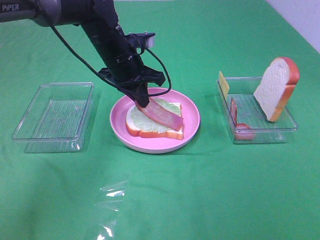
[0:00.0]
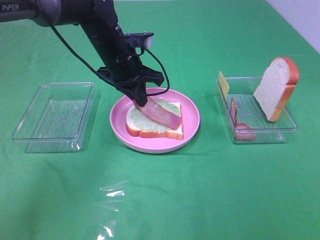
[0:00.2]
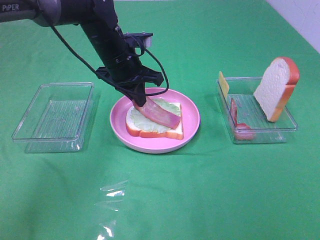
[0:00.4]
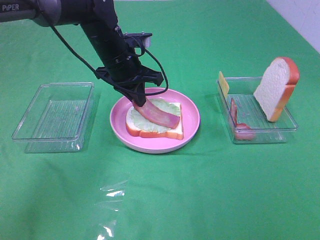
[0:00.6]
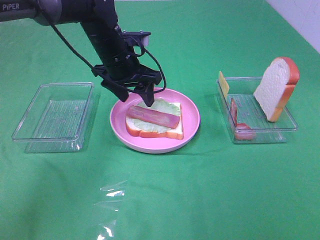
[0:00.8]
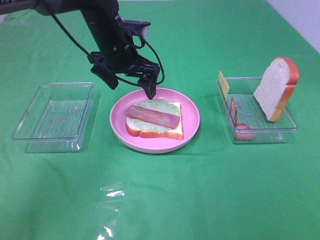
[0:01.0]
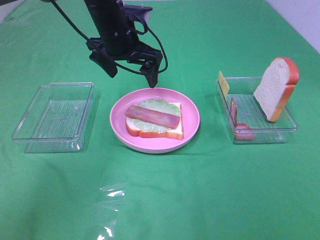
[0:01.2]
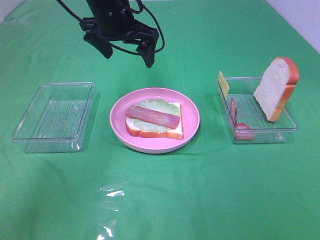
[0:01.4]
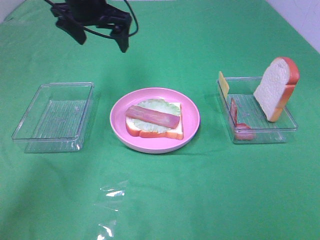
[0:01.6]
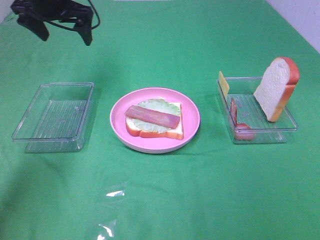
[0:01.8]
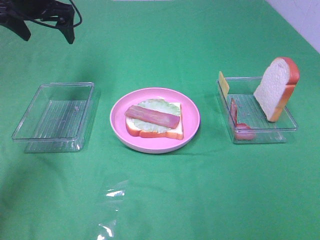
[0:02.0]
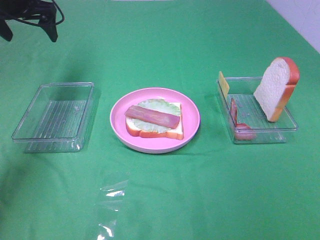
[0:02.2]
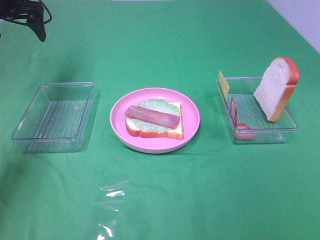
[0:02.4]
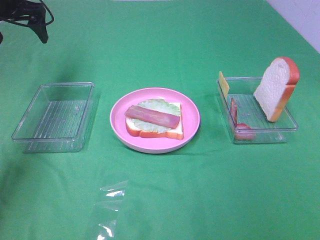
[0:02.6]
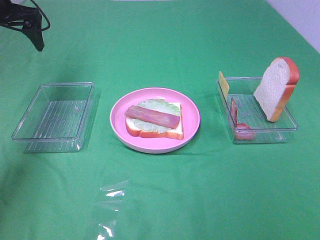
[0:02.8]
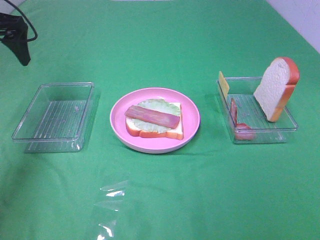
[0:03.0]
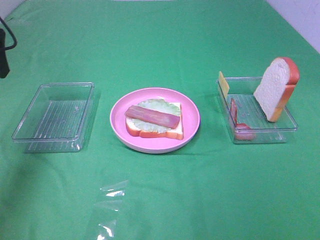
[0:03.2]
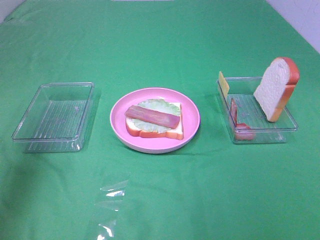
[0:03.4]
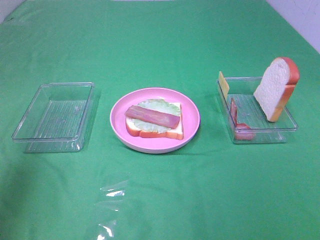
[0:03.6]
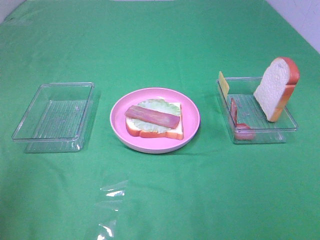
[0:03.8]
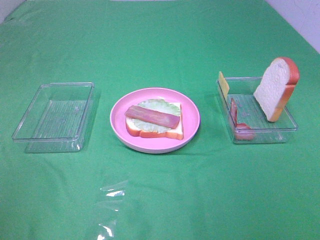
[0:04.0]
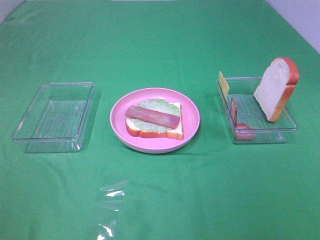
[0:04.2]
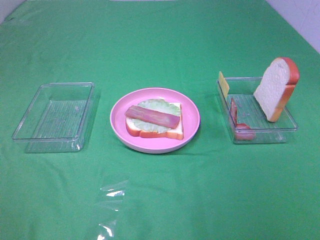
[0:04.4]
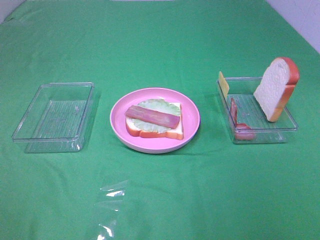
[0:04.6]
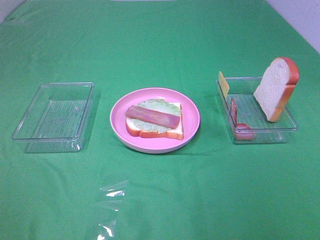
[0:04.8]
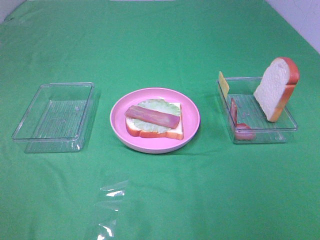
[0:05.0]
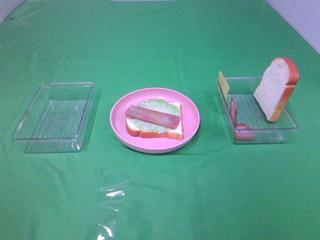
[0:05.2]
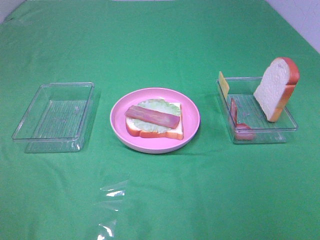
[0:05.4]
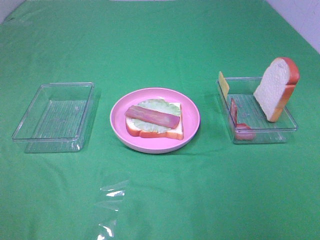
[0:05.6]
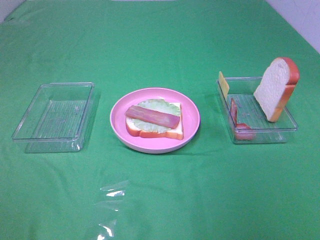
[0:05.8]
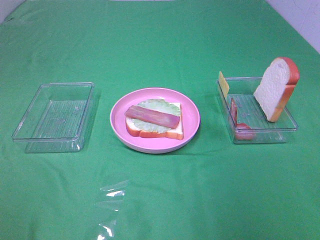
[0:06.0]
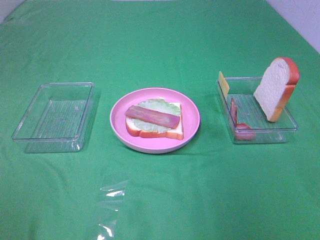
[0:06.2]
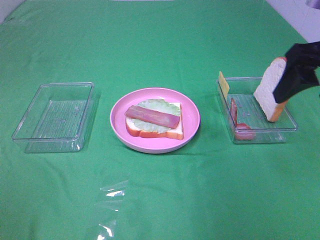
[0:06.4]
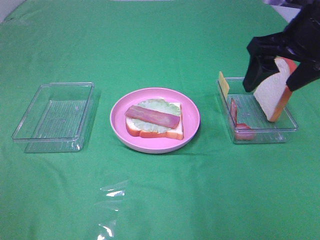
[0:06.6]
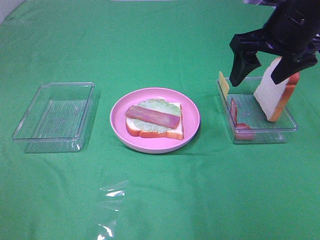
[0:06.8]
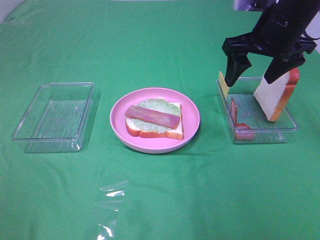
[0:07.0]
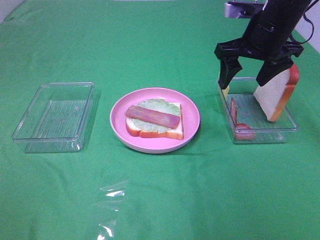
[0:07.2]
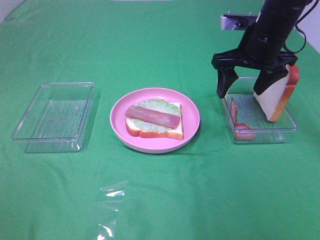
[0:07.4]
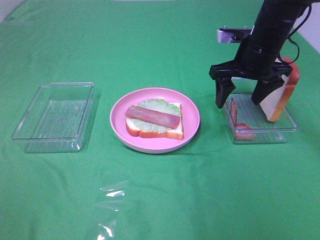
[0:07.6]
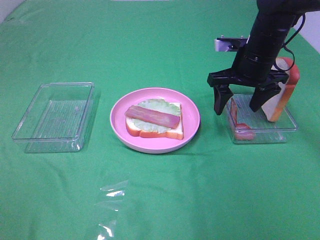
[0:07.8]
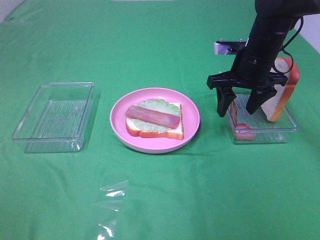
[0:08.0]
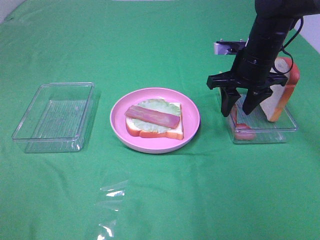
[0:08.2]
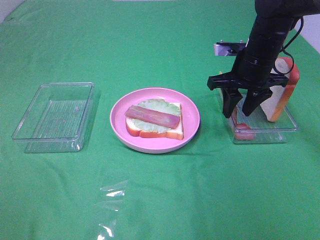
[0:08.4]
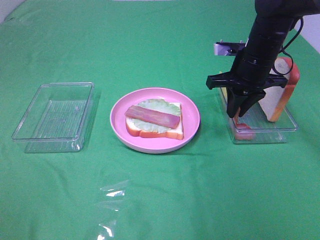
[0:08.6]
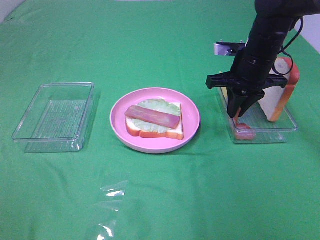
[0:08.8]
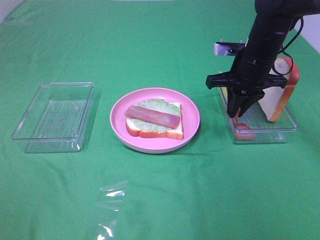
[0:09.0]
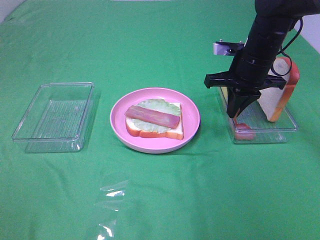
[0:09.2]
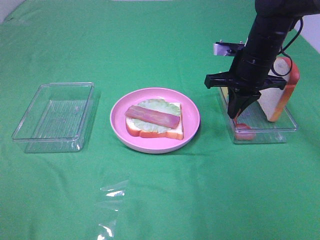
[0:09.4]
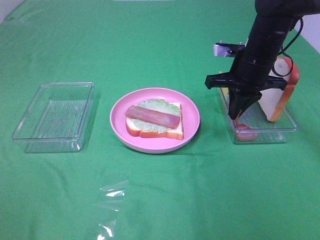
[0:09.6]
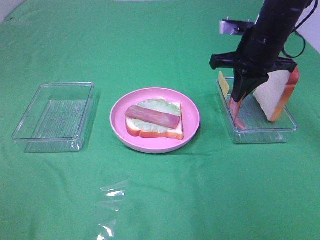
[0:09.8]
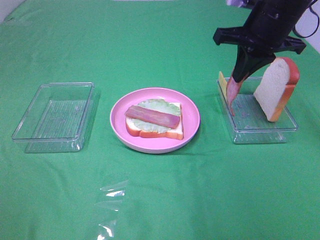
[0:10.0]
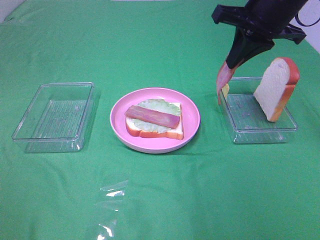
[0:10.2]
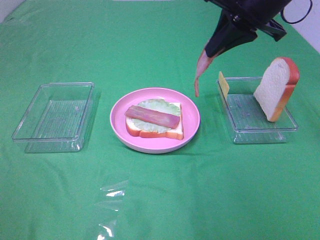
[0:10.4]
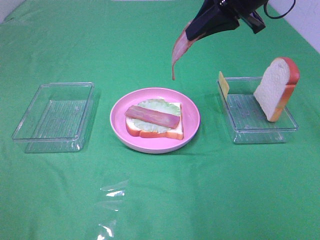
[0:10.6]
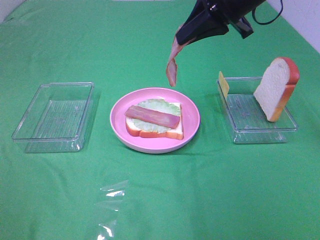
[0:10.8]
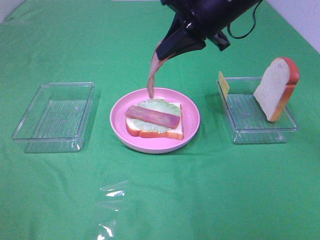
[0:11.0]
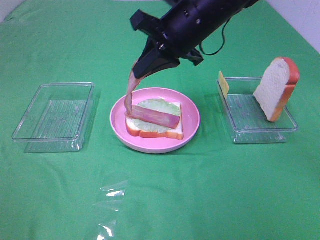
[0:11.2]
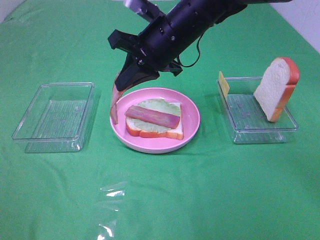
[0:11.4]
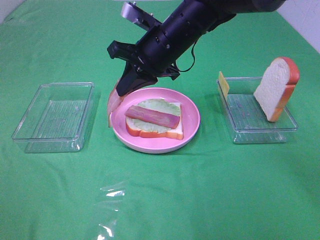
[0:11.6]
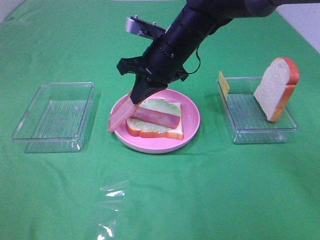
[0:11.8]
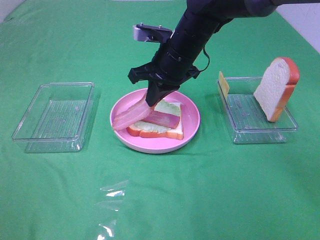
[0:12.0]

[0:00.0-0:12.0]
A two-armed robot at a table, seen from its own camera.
Task of the whole recording: Make sandwiches.
Step, 0:01.0 to 0:09.4: Right hand:grab the bacon.
0:00.0 to 0:01.6: The left gripper shifts approximately 15 cm upward and to the left, and opens its fingers.
0:01.6 to 0:03.0: The left gripper travels to the left and backward by approximately 15 cm.
0:03.0 to 0:04.4: The left gripper is displaced backward by about 40 cm.
0:06.0 to 0:07.6: The right gripper shifts roughly 25 cm forward and downward.
0:07.6 to 0:09.0: The right gripper closes up.
0:09.0 to 0:10.4: The right gripper heads upward, covering approximately 15 cm.
0:10.4 to 0:12.0: The right gripper is displaced downward and to the left by roughly 15 cm.

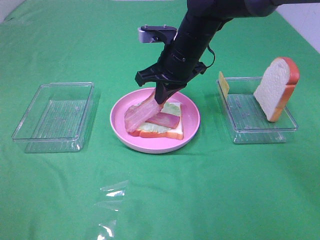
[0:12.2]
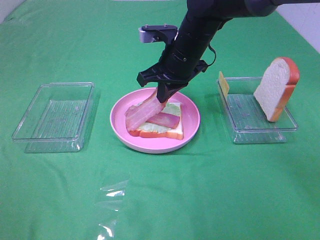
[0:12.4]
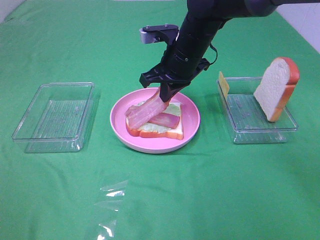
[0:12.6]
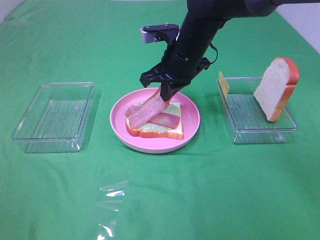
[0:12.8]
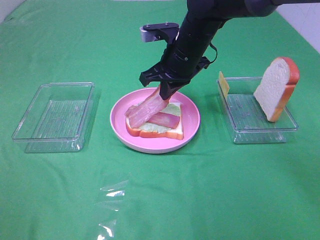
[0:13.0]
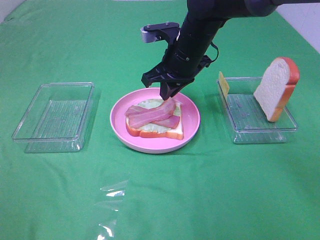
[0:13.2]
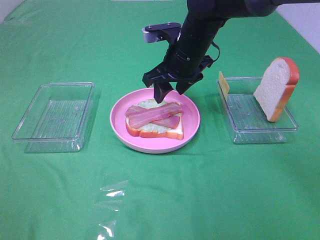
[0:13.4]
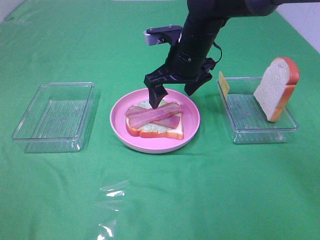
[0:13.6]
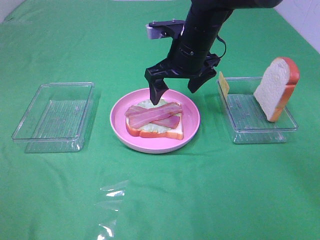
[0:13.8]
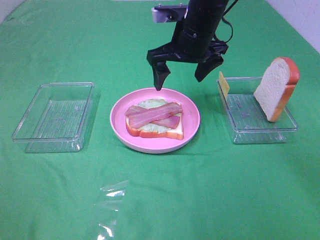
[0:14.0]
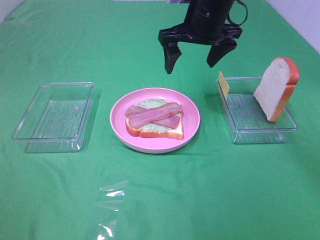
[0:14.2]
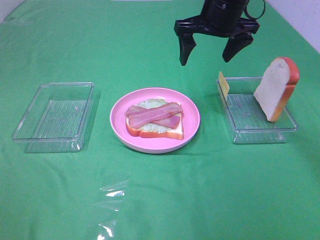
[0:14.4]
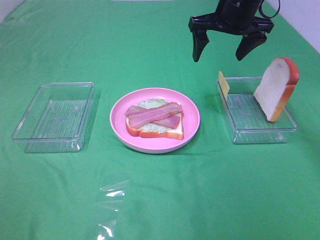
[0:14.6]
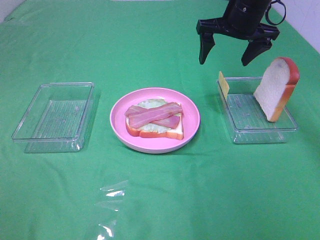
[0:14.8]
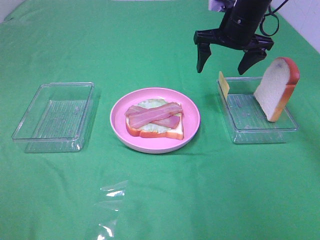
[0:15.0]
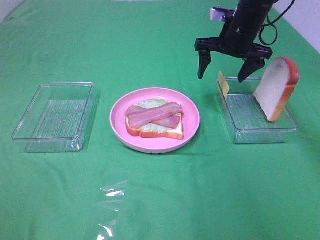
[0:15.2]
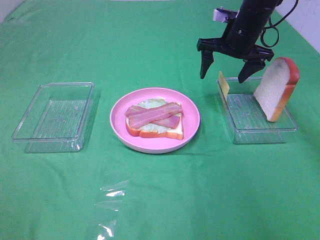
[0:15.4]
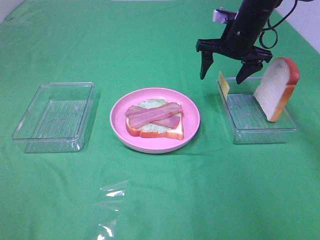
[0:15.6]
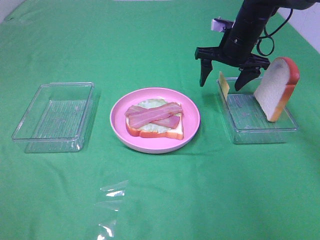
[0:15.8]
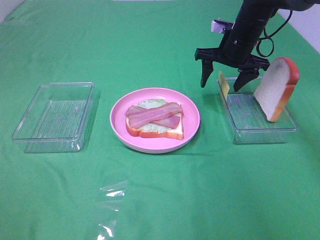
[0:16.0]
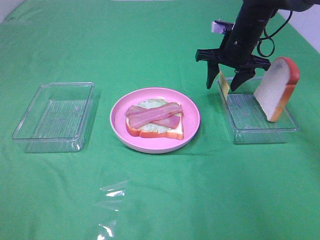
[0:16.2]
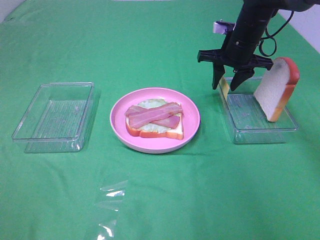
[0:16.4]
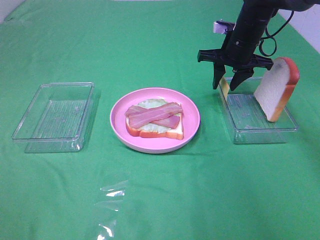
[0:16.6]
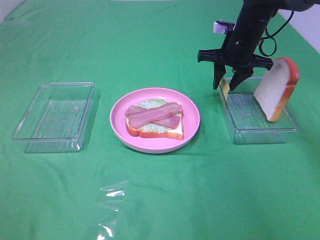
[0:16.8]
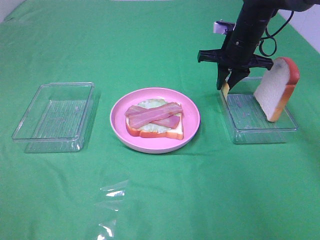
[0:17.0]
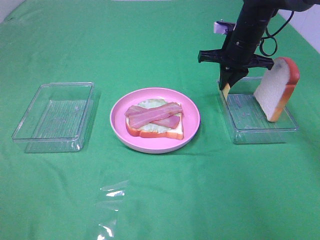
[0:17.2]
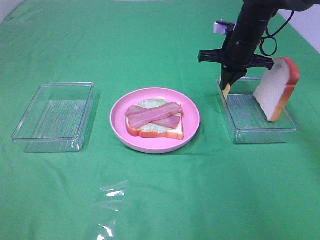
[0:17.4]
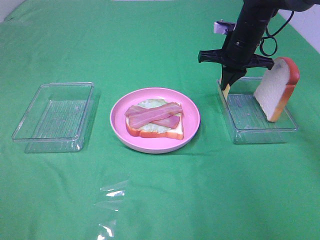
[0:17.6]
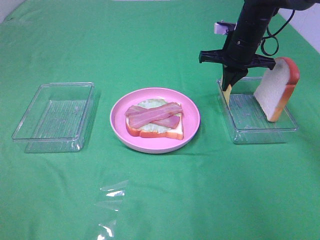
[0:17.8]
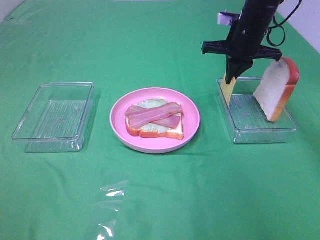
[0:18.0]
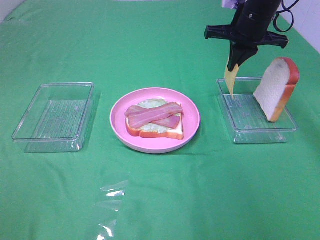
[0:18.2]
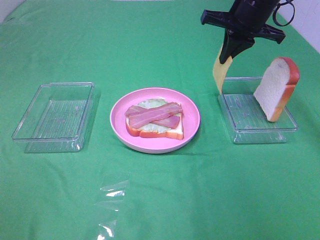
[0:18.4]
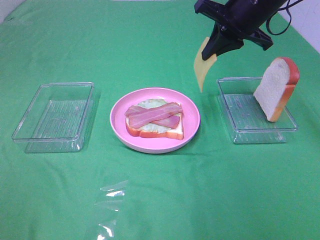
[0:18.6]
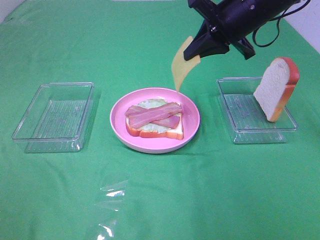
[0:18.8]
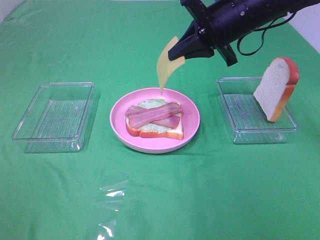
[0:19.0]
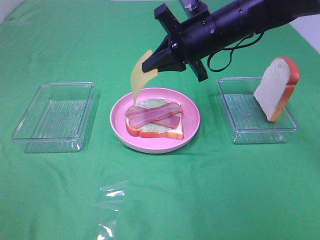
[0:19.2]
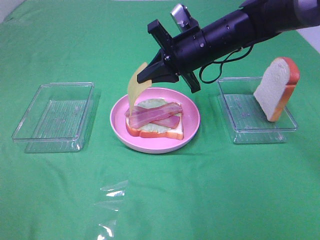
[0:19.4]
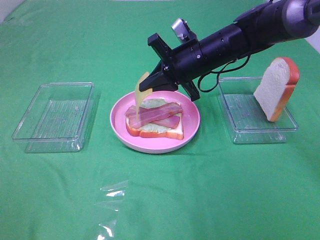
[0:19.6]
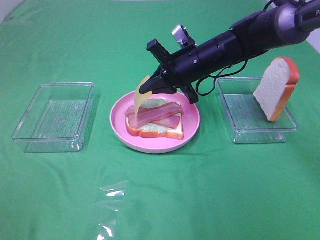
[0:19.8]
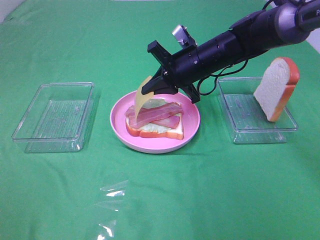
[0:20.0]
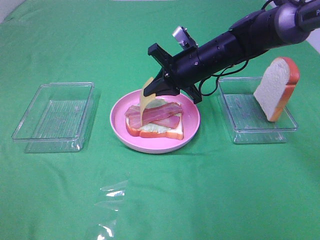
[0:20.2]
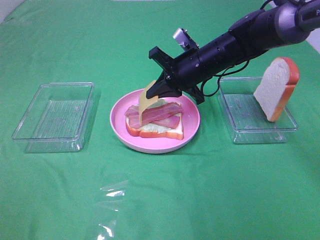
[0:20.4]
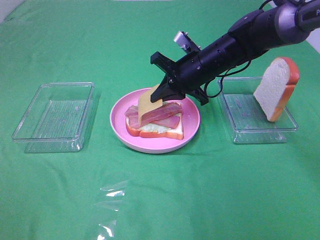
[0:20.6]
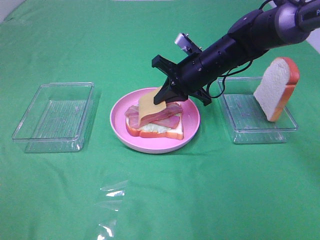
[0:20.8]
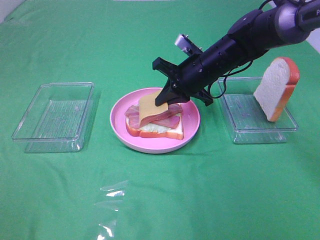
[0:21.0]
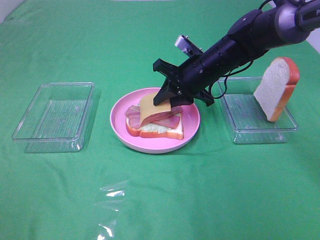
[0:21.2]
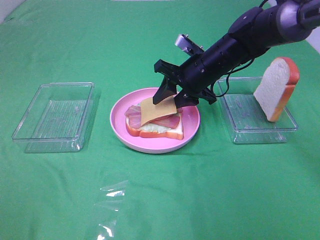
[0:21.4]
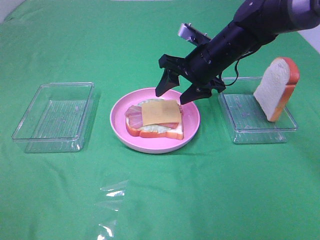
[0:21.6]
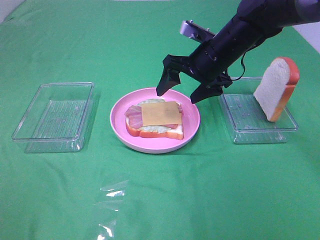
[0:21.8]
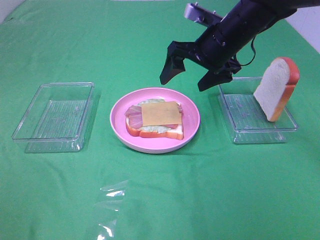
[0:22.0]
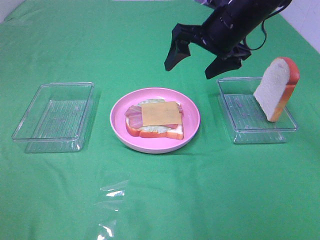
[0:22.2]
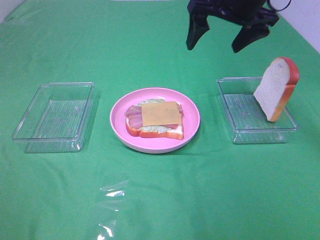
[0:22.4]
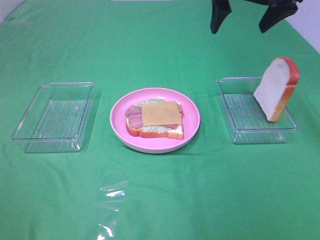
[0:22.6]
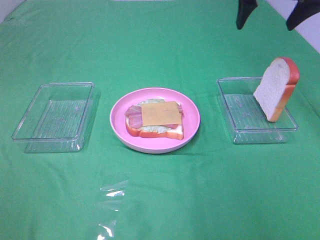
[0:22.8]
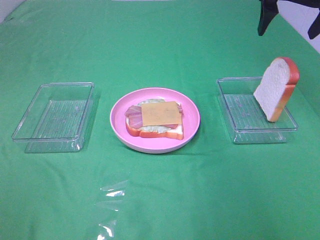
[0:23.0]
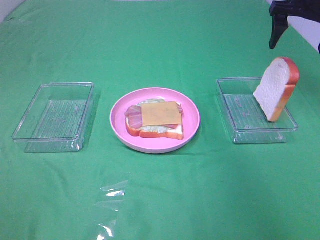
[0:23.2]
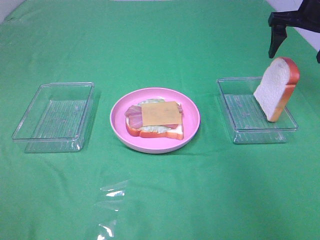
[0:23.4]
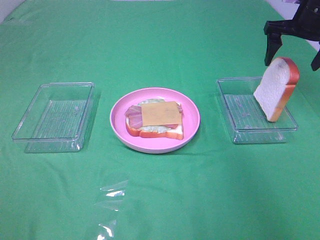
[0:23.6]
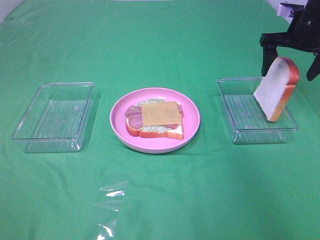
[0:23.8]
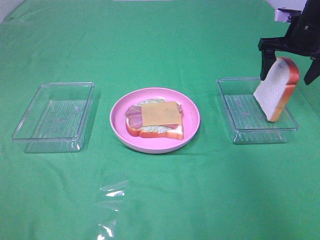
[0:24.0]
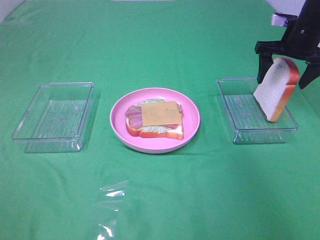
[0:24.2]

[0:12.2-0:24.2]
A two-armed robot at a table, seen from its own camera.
Task of the whole recording: Make sandwiches.
Step, 0:13.8 to 0:17.4: Right hand:grab the cheese slice.
Step, 0:17.6 to 0:21.8: Right hand:place the cheese slice on top of the bacon.
0:12.2 to 0:13.8: The right gripper opens.
0:13.8 to 0:15.2: The right gripper goes some 15 cm to the right and forward.
0:15.2 to 0:16.6: The right gripper closes its fingers.
0:16.6 to 0:18.2: The right gripper shifts approximately 5 cm upward, and closes its fingers.
0:18.2 to 0:19.8: The right gripper travels to the left, downward and backward by some 15 cm.
0:19.8 to 0:21.2: The grippers stay close to where they were, moving slightly.
0:21.2 to 0:22.6: The right gripper heads upward, covering approximately 20 cm, and opens.
0:22.6 to 0:24.2: The right gripper goes about 20 cm downward, to the right and forward.
